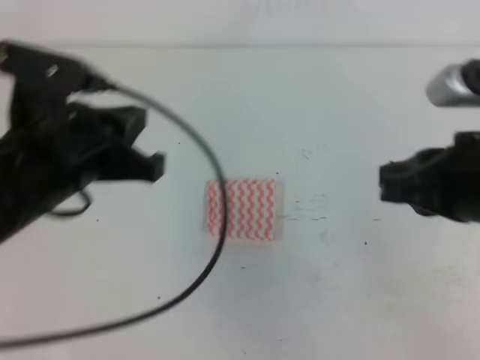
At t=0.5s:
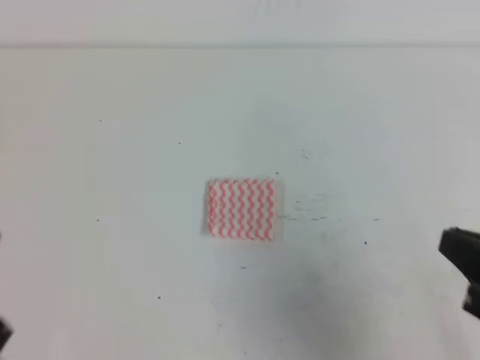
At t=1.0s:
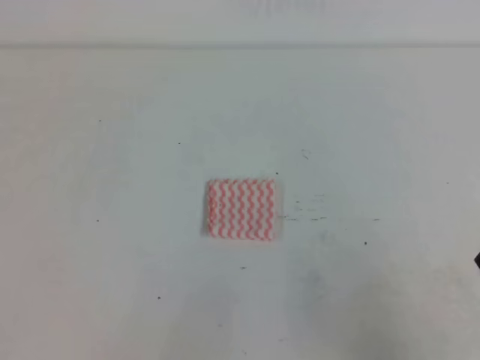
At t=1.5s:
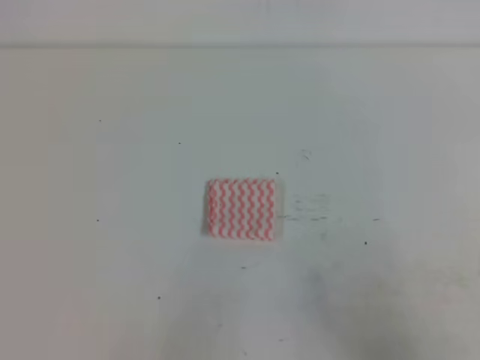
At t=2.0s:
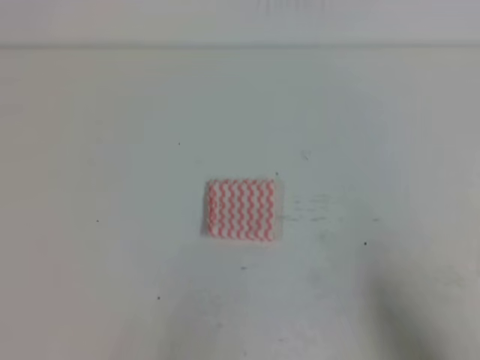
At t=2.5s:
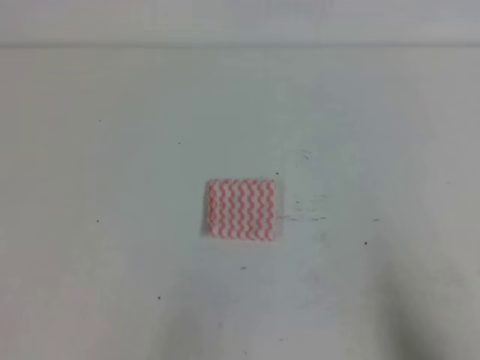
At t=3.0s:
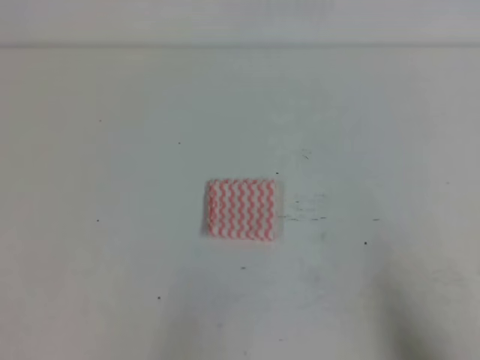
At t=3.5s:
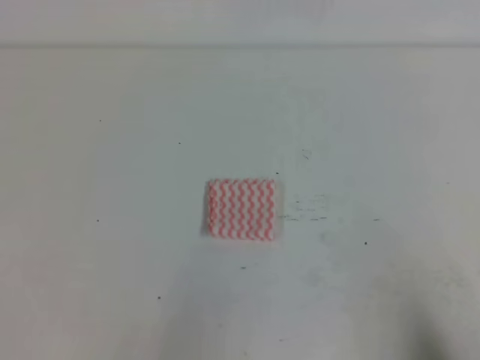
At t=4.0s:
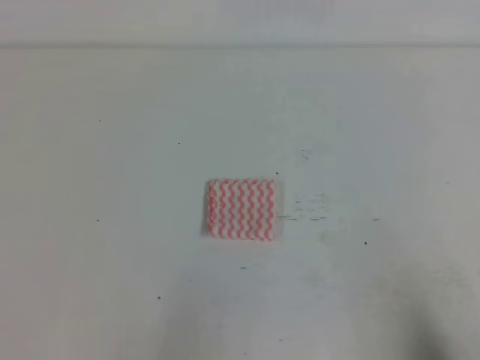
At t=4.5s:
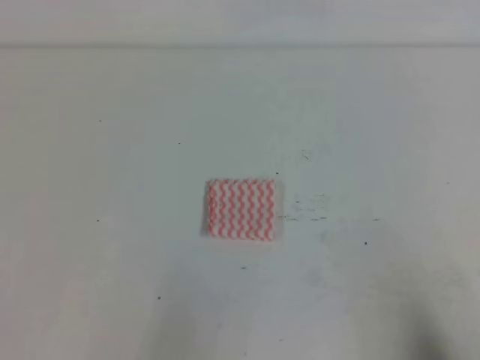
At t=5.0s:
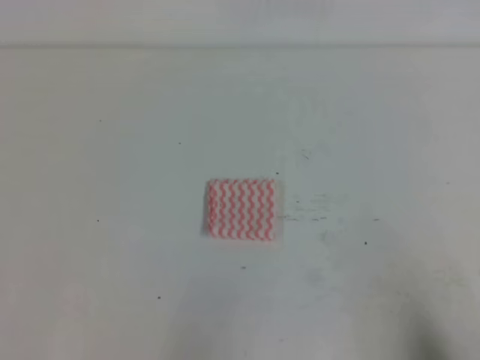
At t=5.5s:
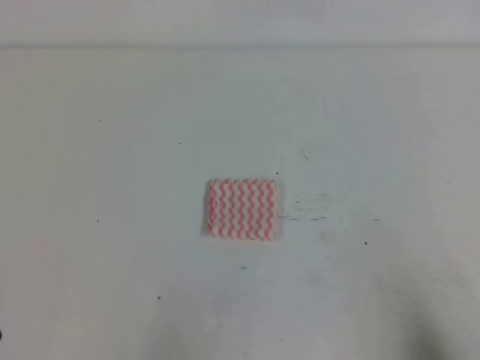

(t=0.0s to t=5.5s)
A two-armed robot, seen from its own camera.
Step, t=0.0s - t=5.5s: Fold the towel.
t=0.0s - t=2.0s: The right gripper is displaced downward, backward and to the right by some 20 cm; the left gripper moves backward, downward and to the left, approximately 25 cm.
